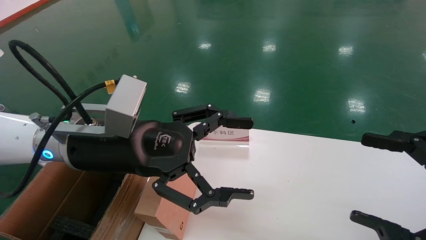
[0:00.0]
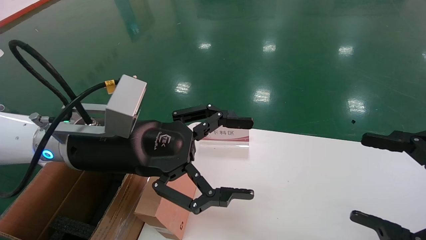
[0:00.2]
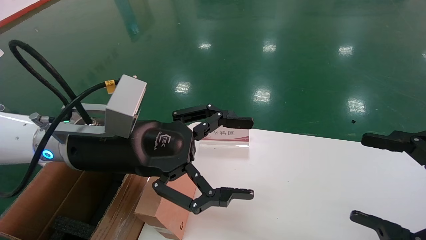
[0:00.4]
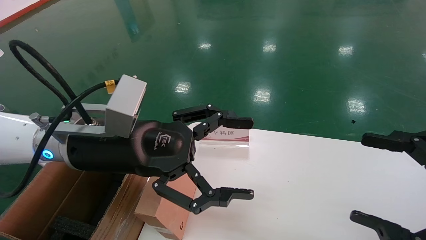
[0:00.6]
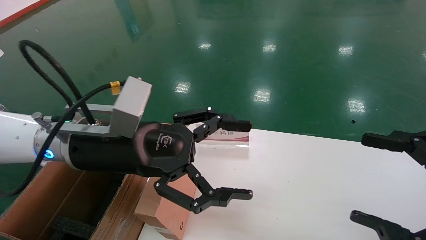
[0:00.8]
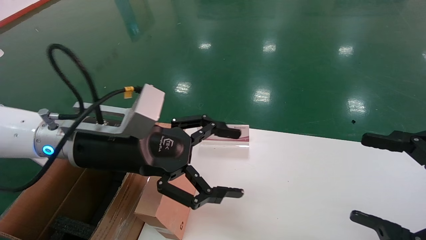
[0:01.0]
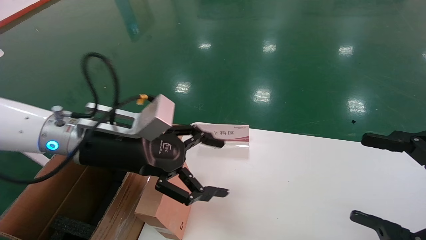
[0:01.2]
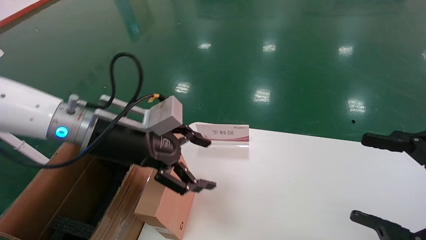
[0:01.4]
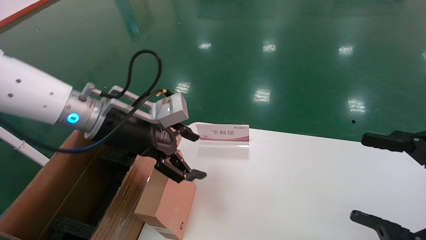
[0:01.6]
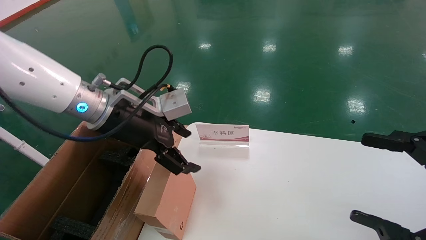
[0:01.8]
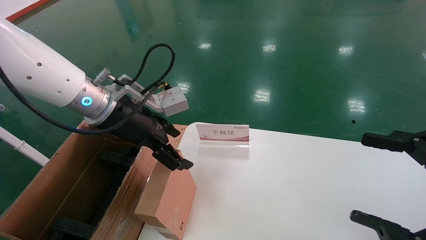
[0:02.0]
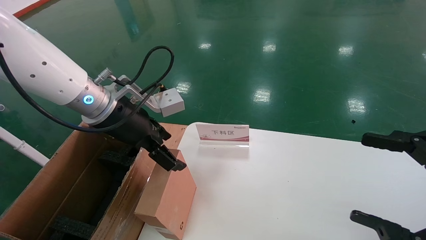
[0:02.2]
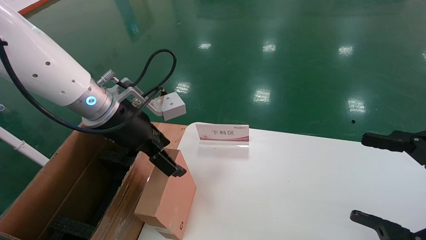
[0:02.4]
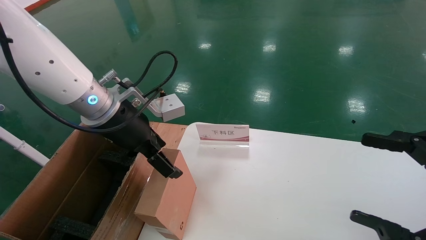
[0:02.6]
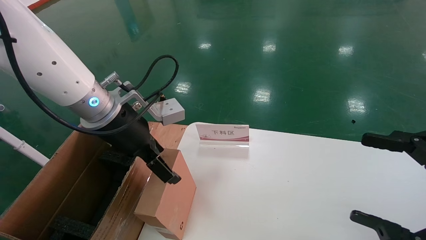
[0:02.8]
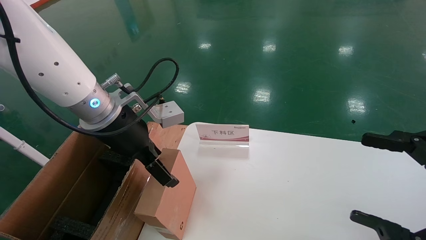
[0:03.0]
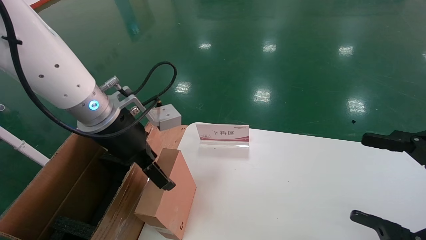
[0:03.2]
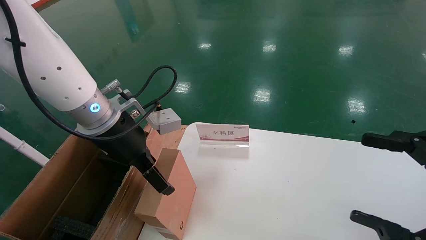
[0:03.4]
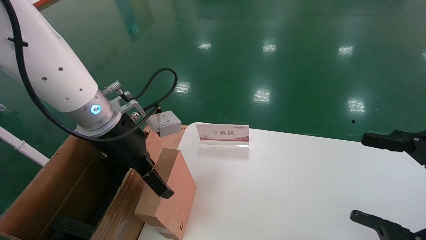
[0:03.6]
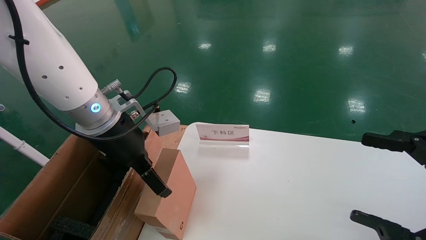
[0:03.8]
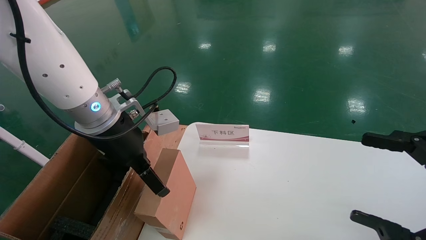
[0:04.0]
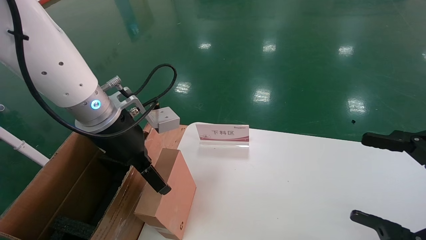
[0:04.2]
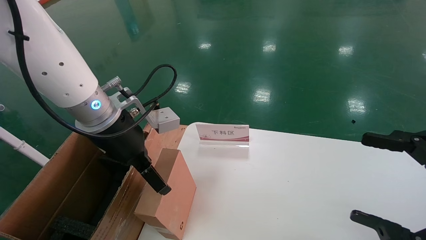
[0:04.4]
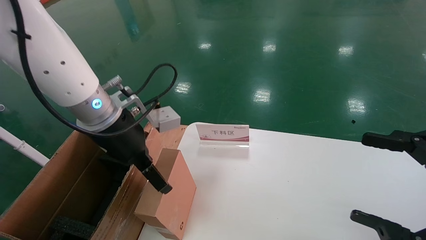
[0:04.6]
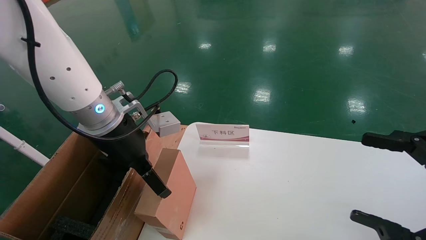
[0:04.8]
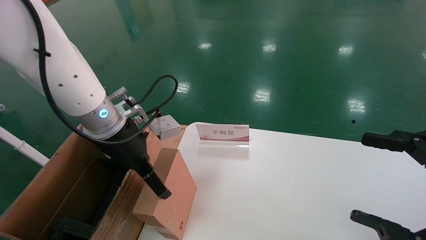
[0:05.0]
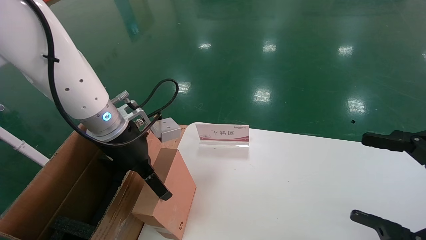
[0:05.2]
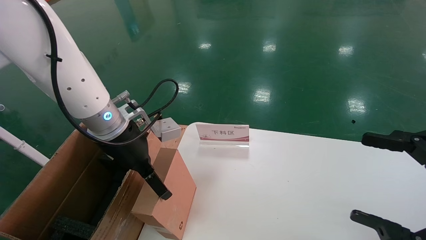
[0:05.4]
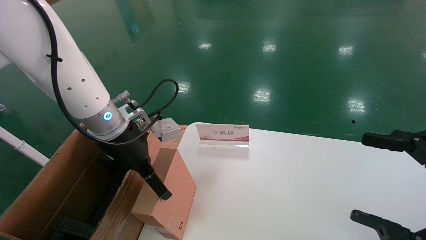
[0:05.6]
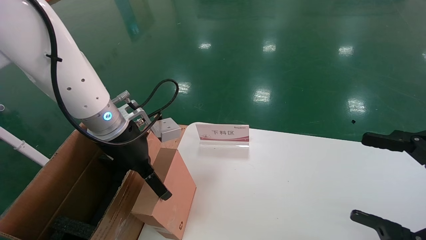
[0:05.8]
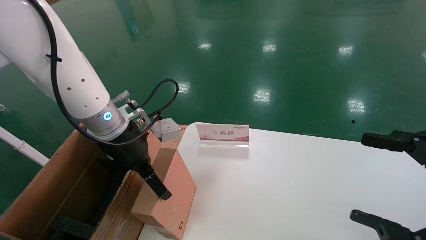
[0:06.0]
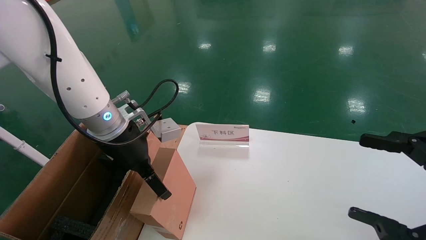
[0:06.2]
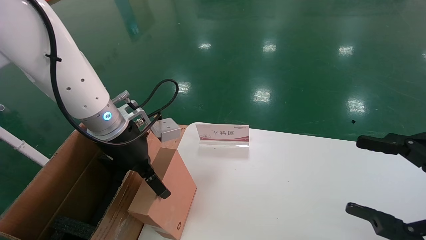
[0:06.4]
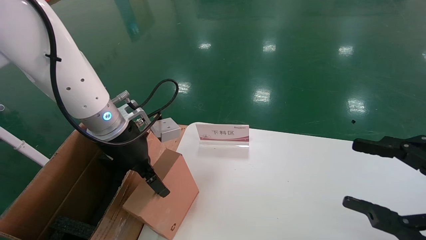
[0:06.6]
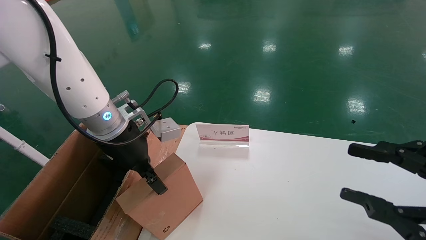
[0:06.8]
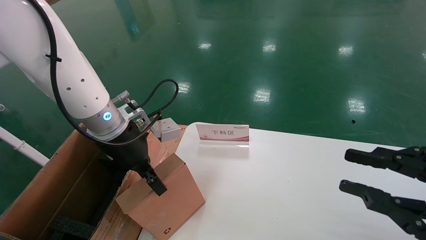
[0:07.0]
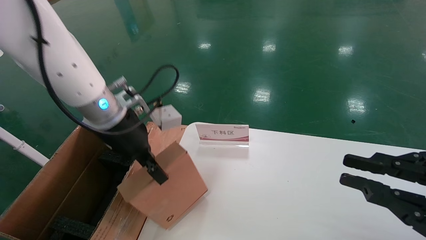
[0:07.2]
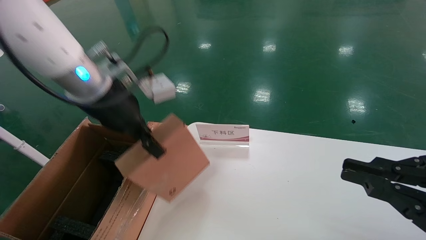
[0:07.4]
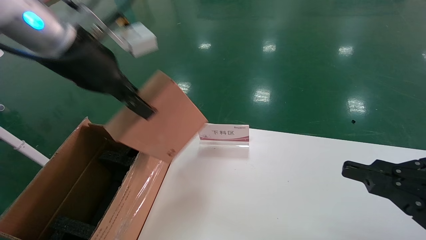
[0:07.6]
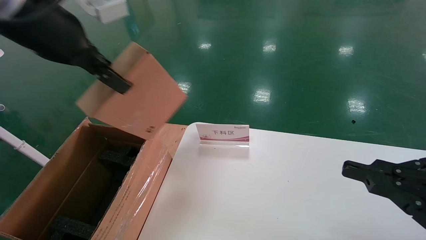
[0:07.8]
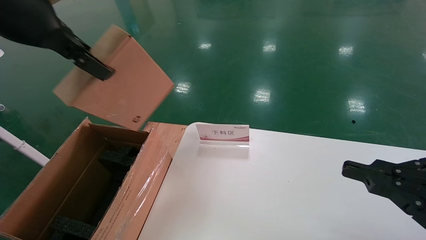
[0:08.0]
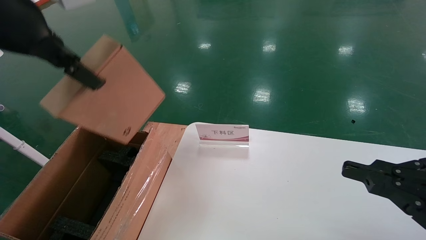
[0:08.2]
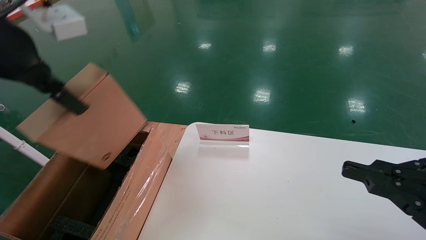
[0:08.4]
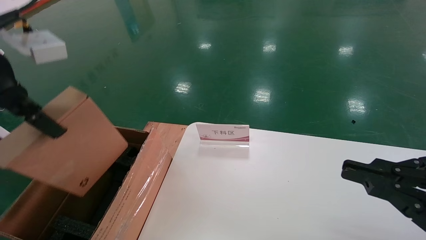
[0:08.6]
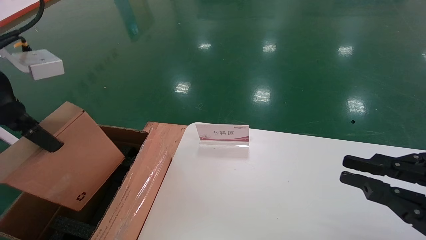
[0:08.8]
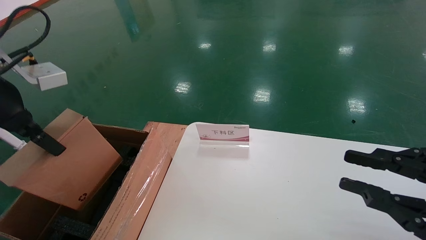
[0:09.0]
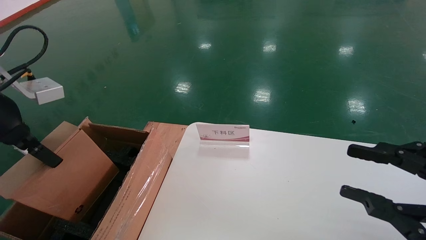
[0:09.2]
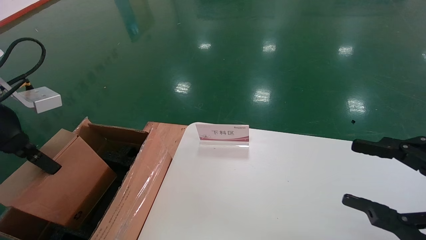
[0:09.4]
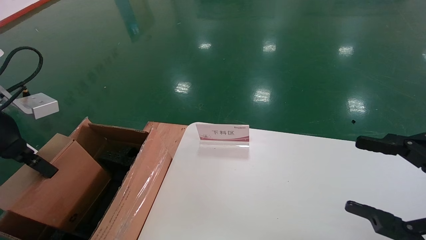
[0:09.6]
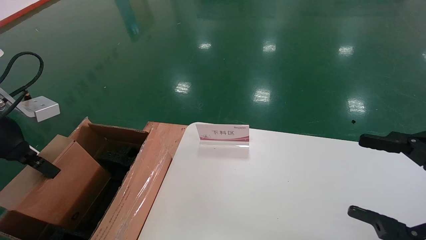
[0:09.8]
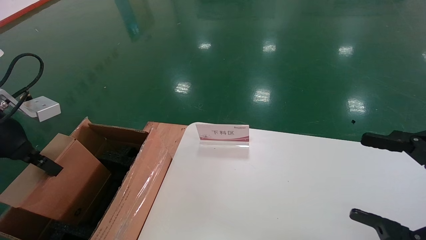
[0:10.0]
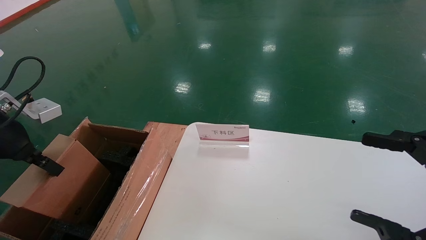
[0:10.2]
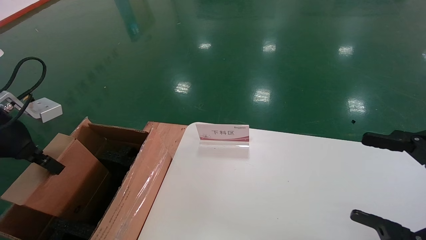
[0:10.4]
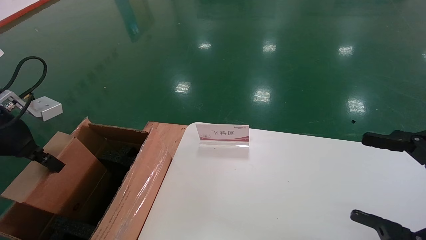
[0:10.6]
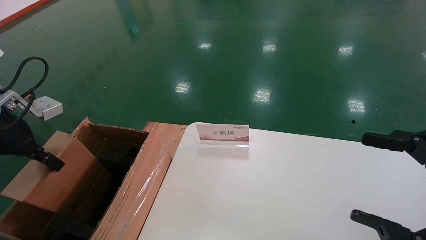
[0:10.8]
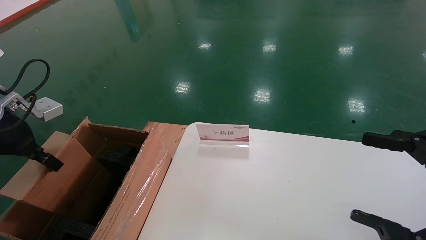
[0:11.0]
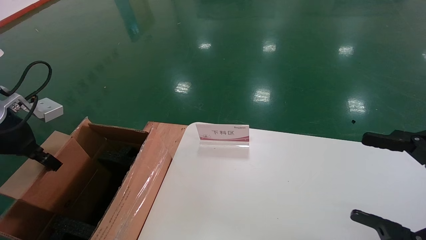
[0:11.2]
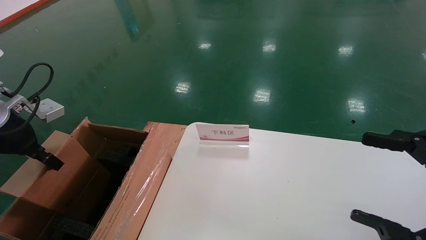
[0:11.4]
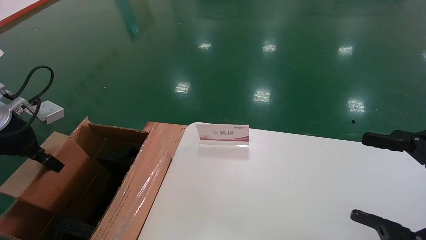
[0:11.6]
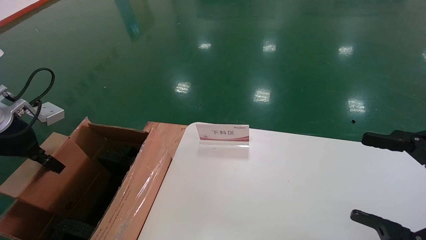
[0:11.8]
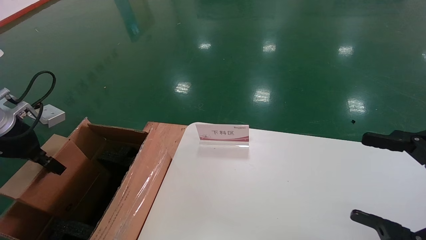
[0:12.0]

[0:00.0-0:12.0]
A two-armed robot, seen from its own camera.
Task of the whole recording: pick up the small cardboard box and load it into the large cardboard box.
Step, 0:01.2 to 0:06.8: Pick up the mouse and power cord box.
0:00.0 to 0:01.6: The left gripper is displaced forward by roughly 5 cm.
0:03.0 to 0:06.0: The grippers make only small movements.
0:06.0 to 0:07.6: The left gripper heads upward, covering roughly 15 cm, and closes; the right gripper closes up.
0:07.6 to 0:09.0: The left gripper goes some 15 cm to the left and backward.
0:09.0 to 0:10.4: The right gripper opens; the left gripper moves downward and to the left, about 10 cm.
0:10.4 to 0:12.0: The left gripper shifts by roughly 5 cm.

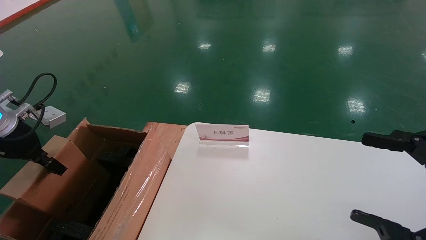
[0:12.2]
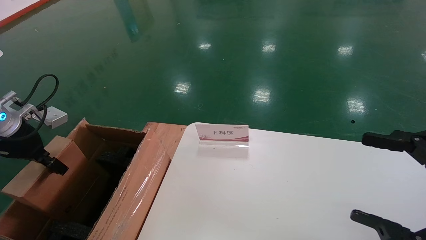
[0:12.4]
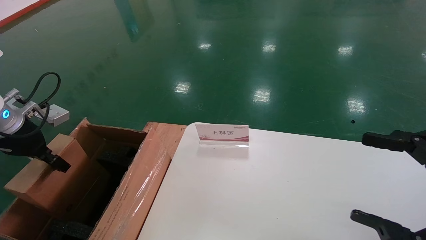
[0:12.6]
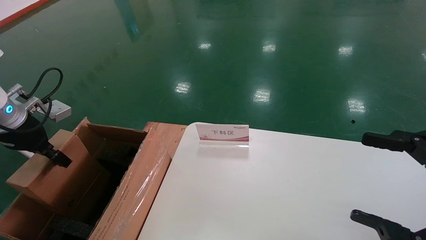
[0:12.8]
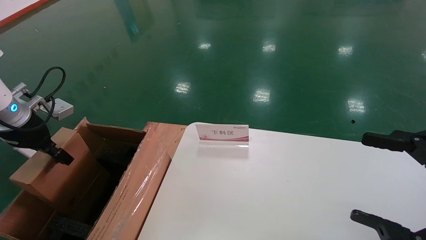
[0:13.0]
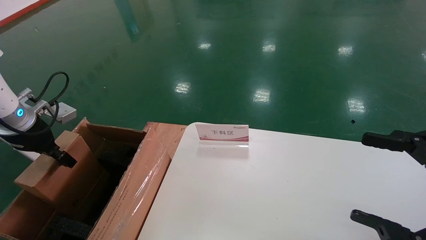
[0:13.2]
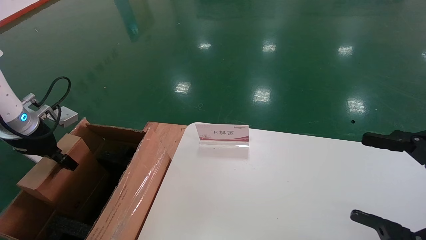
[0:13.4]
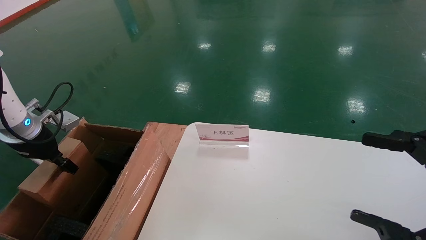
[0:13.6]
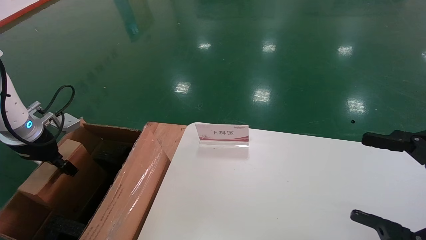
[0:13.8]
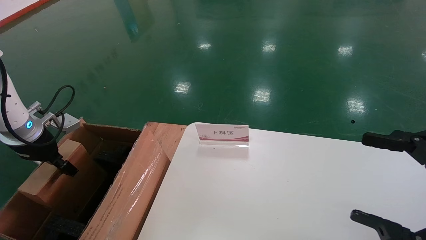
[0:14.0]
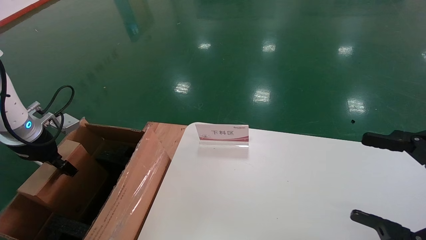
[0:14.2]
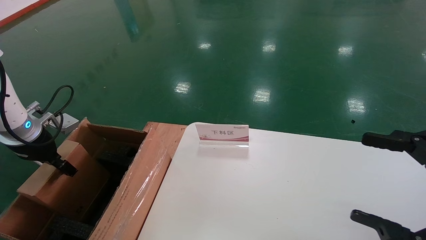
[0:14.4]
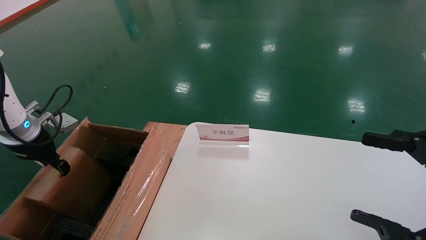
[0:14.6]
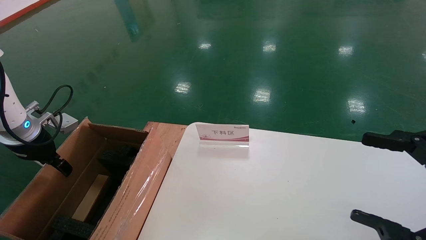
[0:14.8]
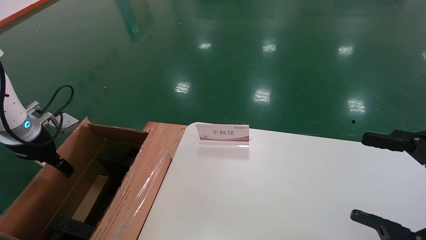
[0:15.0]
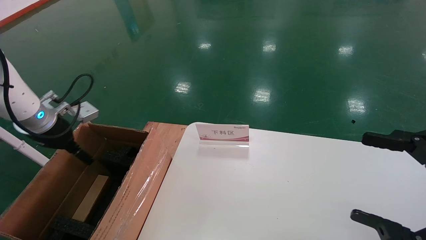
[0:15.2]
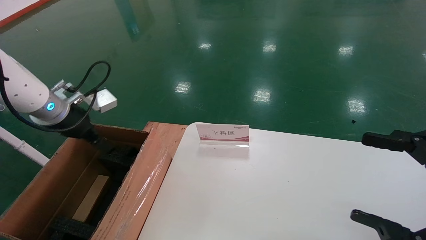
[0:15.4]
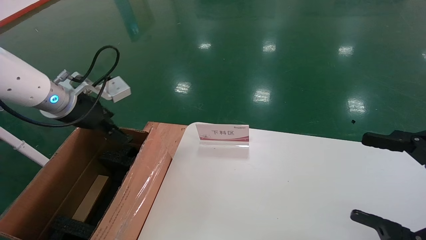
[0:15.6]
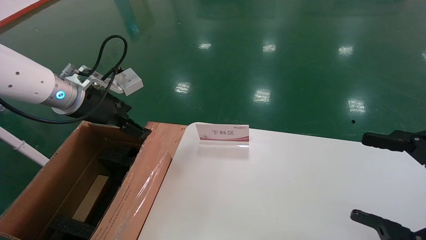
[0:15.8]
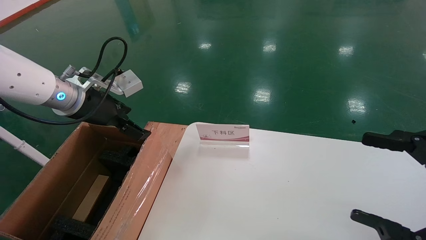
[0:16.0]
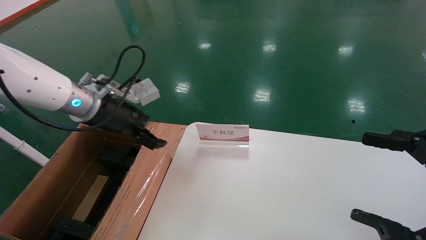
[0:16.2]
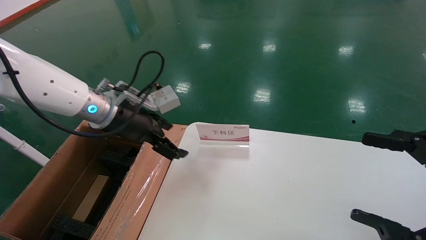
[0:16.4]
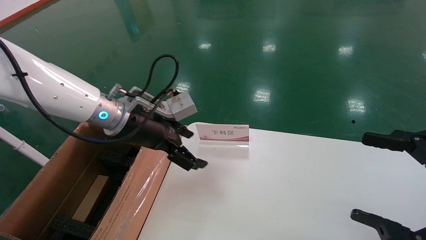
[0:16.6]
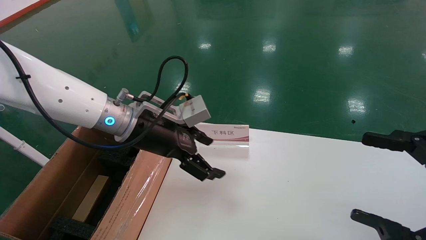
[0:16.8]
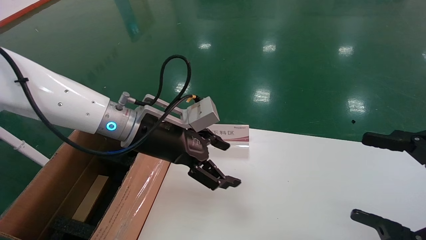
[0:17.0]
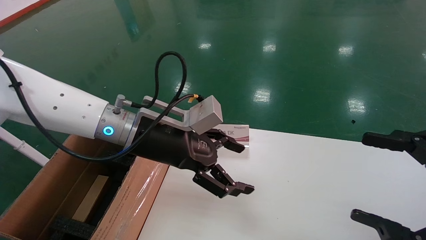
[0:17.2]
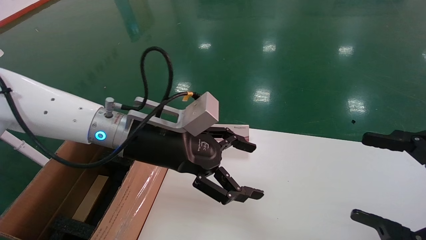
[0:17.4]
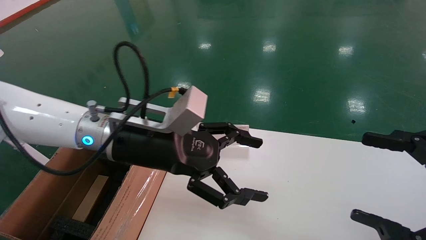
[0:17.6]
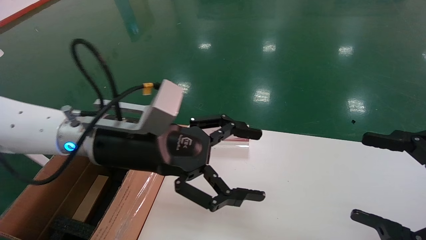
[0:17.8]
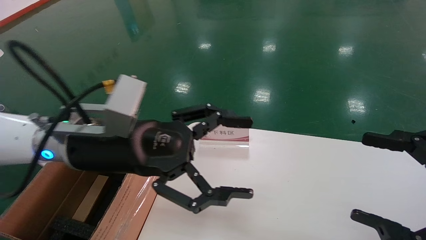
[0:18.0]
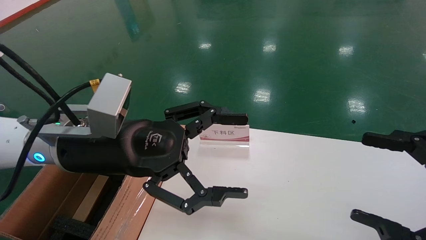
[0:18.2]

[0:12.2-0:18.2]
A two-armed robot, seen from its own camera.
Task of the whole recording: pick up the small cardboard box and load it into the large cardboard box.
Step, 0:12.2 to 0:14.8: Place the mouse and power cord box into the case.
0:12.2 to 0:13.8: The left gripper shifts by some 5 cm.
0:13.8 to 0:15.2: The left gripper changes place by some 5 cm, and opens up.
0:15.2 to 0:16.6: The left gripper heads to the right, covering roughly 20 cm.
0:16.6 to 0:18.2: The left gripper travels backward by roughly 10 cm.
